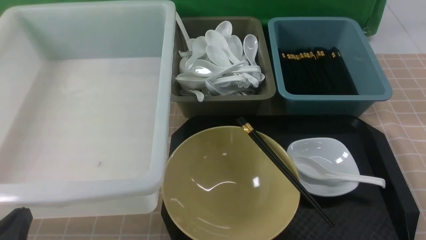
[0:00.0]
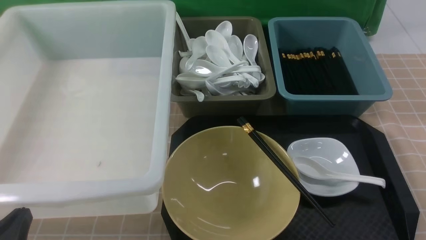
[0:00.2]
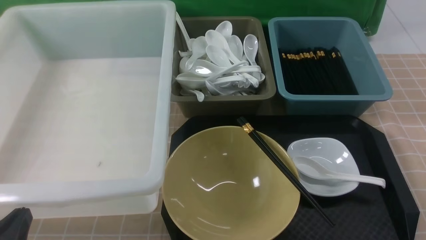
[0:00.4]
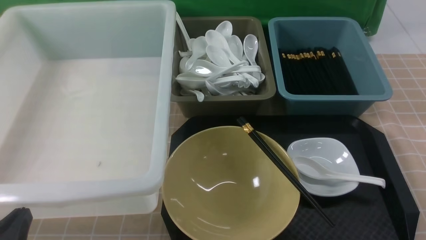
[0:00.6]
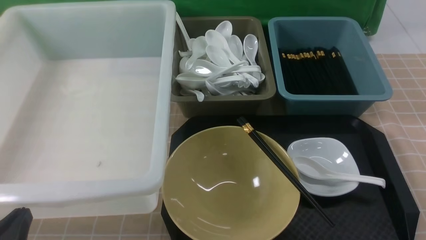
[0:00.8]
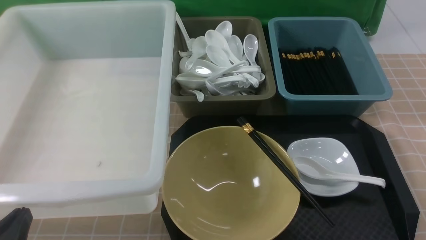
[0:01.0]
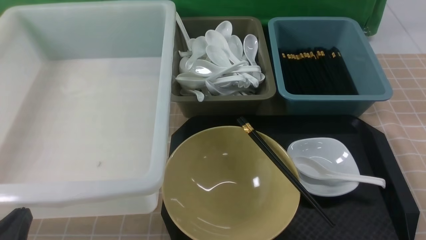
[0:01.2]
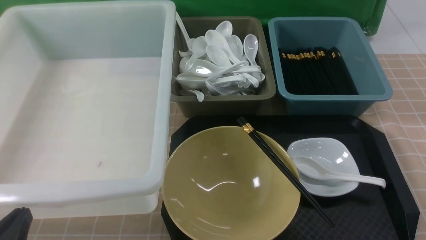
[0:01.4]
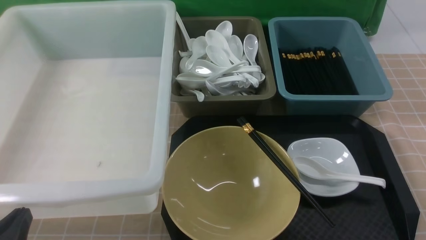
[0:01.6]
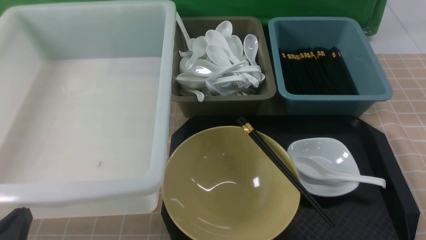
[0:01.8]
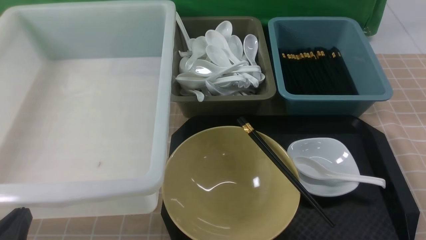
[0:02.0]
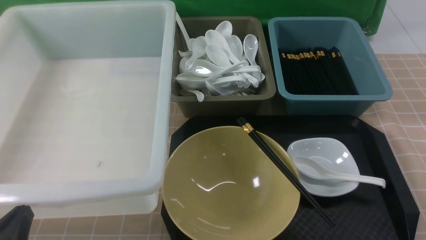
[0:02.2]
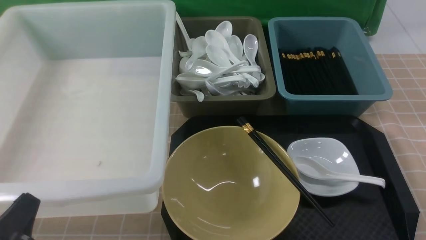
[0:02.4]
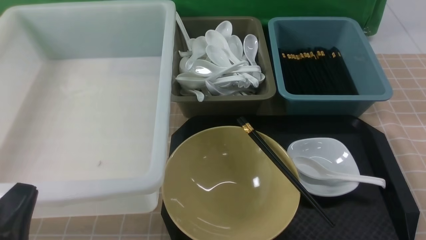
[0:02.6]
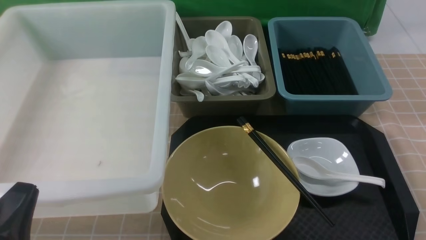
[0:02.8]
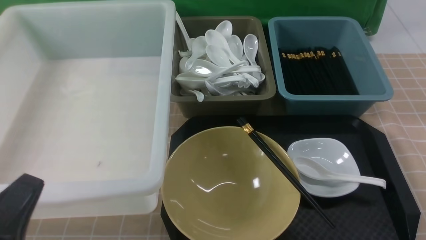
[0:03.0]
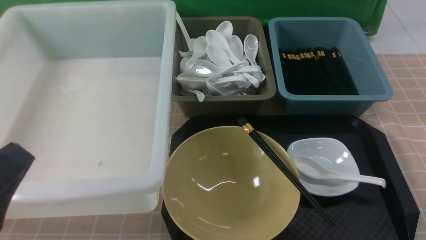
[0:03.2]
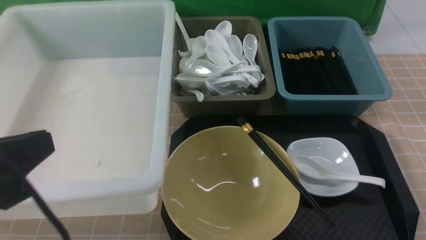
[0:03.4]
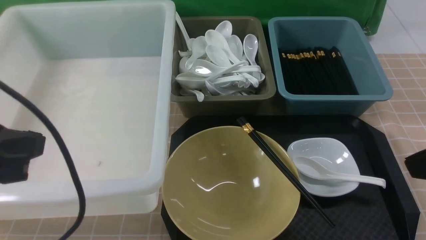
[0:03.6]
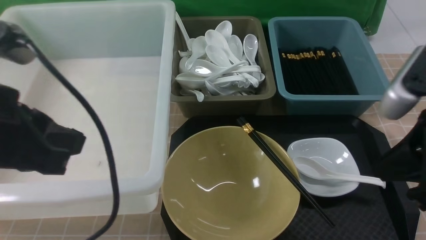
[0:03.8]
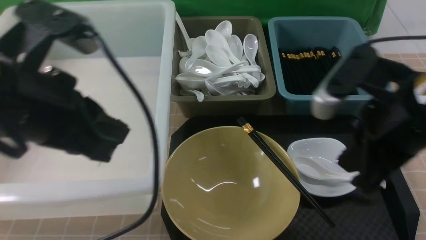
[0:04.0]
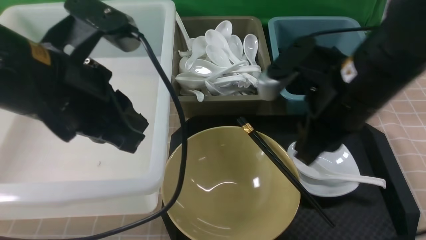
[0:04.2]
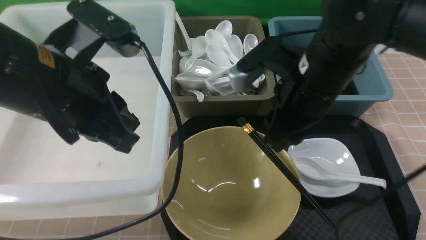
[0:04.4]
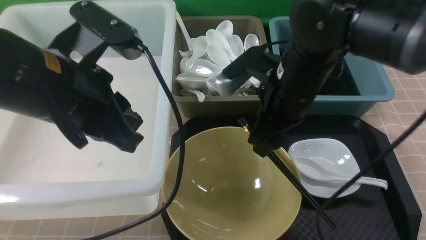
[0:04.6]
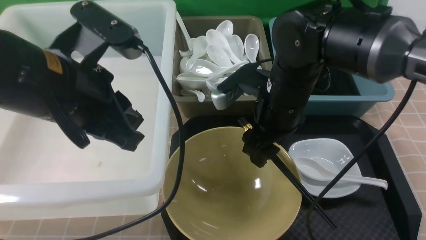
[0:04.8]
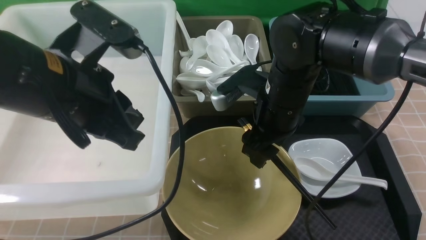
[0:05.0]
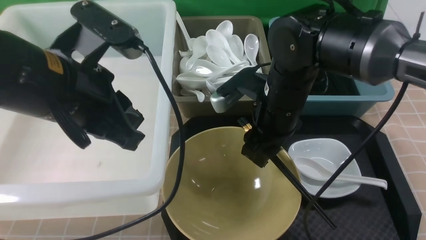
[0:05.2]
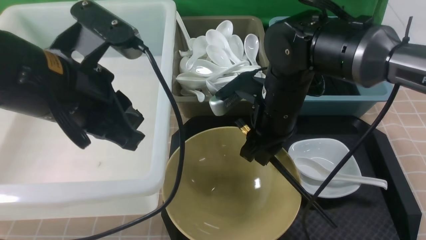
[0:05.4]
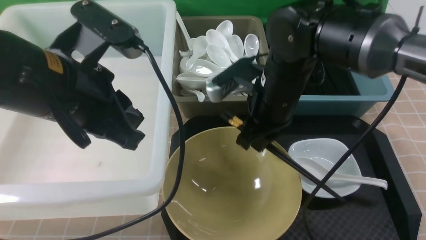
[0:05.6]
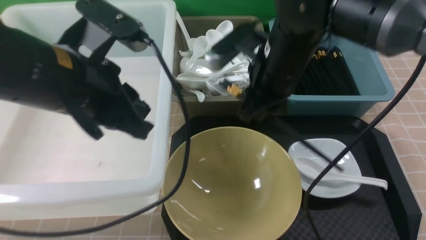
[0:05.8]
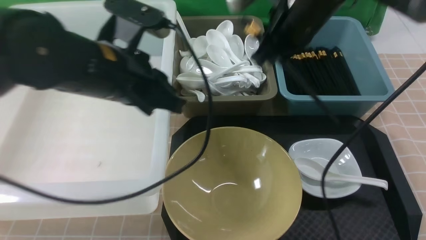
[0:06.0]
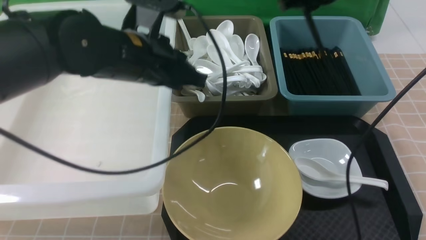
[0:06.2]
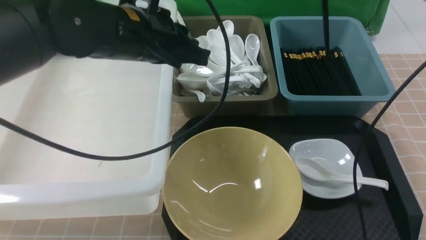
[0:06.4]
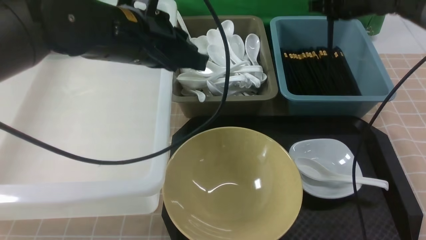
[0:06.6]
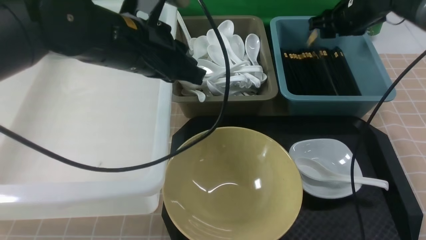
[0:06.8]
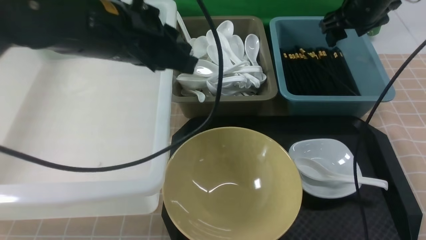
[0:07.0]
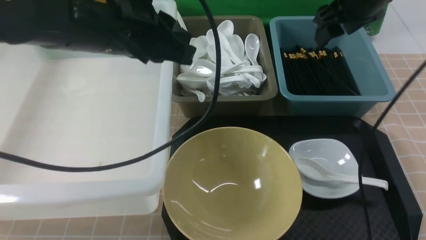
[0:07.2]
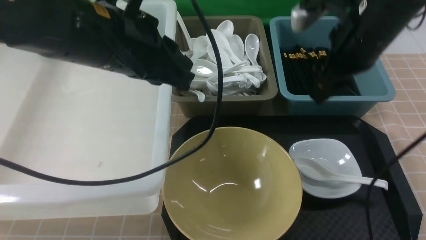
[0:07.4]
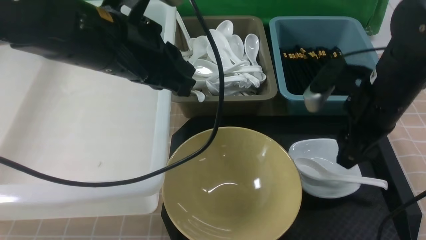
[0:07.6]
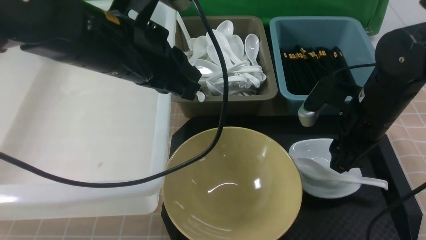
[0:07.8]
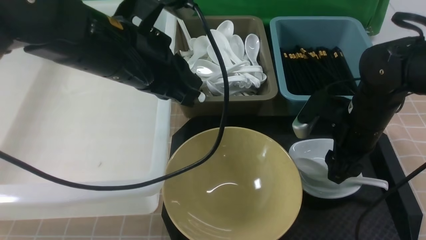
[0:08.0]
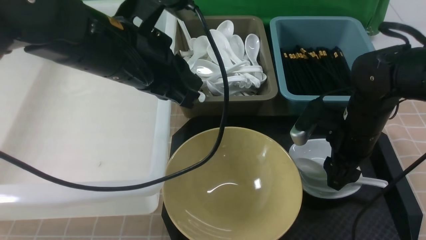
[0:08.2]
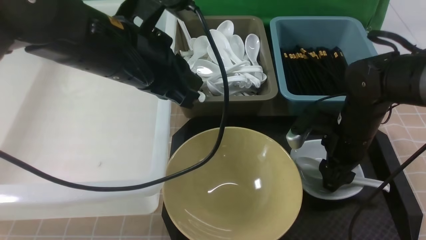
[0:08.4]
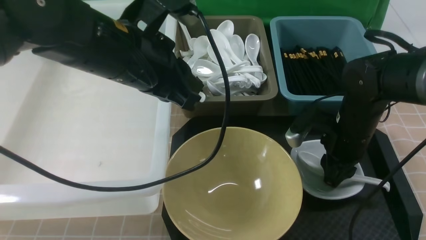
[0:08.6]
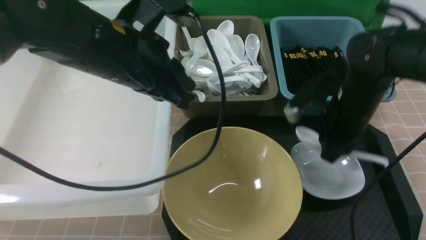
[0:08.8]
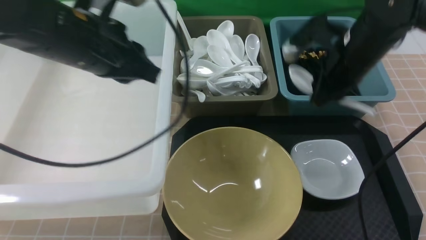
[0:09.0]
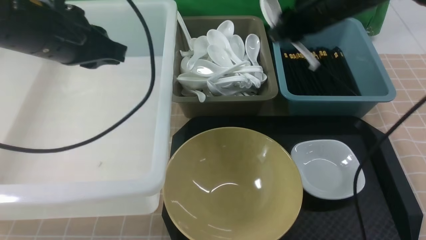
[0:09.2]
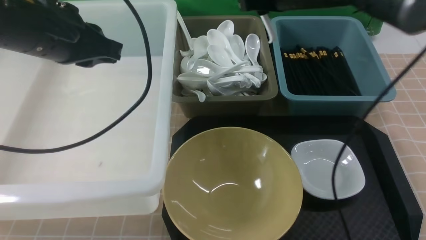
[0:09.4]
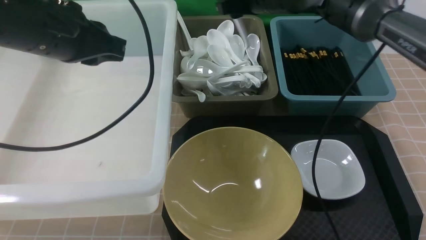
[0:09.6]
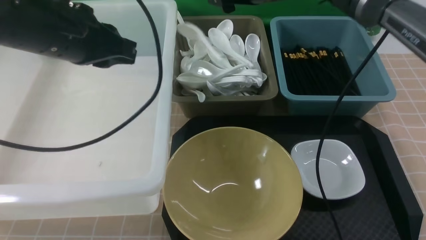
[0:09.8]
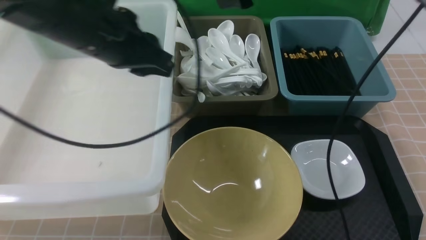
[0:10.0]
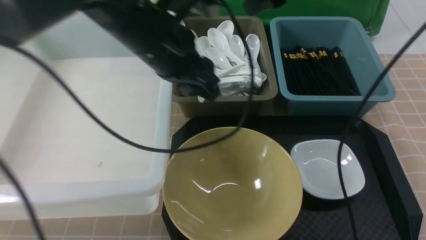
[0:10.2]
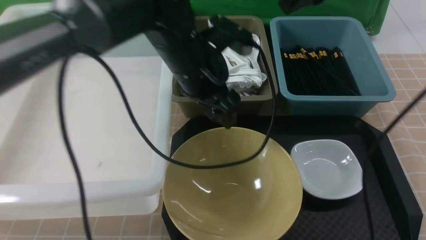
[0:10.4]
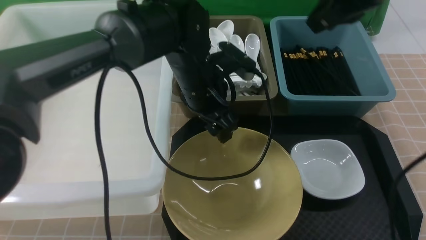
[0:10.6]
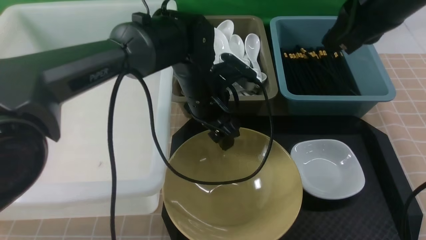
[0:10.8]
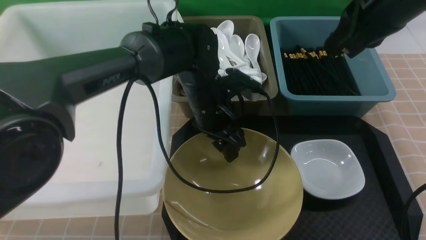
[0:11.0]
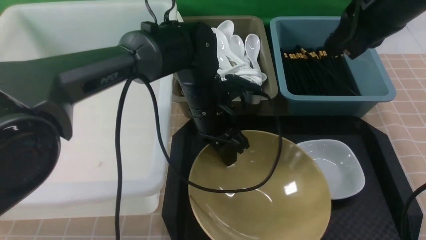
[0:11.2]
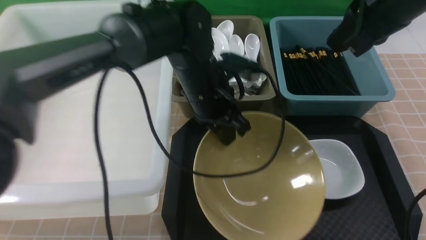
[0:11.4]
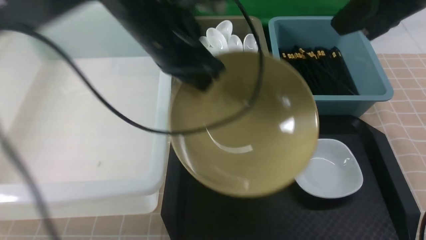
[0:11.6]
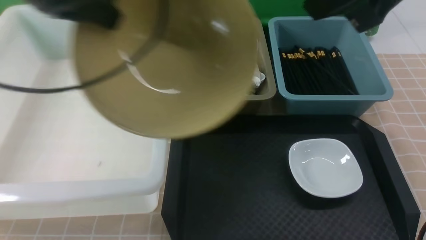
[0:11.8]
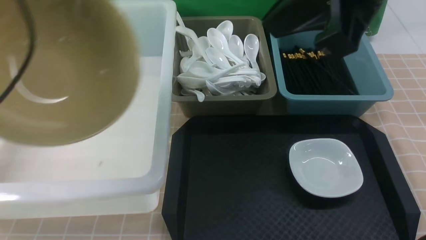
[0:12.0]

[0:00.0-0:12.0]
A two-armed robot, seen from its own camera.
Task of the whole recording: on brown table put chopsticks spoon bowls plates into blue grey white boxes.
Step, 0:00.0 to 0:05.6: use the right arm to grab the chopsticks.
Step, 0:05.8 to 0:07.2: use the right arm to put the chopsticks into the small storage box on the right.
Step, 0:07.4 to 0:08.8: use the right arm to grab the soup spoon in the middle.
Step, 0:09.0 to 0:09.8: use the right arm to put the soup spoon into the small storage box in the middle.
Step, 0:10.0 to 0:11.4: use the left arm to grab the yellow noodle bowl on the left.
0:00.0 to 0:01.6: Neither gripper changes place.
0:01.6 to 0:03.0: The left gripper goes roughly 5 cm upward.
0:03.0 to 0:04.4: The left gripper travels forward, upward and to the right by some 20 cm. The right gripper is displaced forward, to the left and upward by some 30 cm, and opens.
0:04.4 to 0:06.0: The left gripper travels forward by approximately 5 cm; the right gripper shifts approximately 10 cm forward, and closes.
0:06.0 to 0:07.6: The right gripper shifts roughly 15 cm to the right, backward and downward, and opens.
0:07.6 to 0:09.0: The right gripper shifts some 5 cm forward, moves some 10 cm downward and comes back, and closes. The left gripper ends up about 5 cm from where it was.
0:09.0 to 0:10.4: The right gripper heads upward, covering some 15 cm, and opens, then closes once more, while the left gripper heads to the right, downward and forward, covering some 15 cm, and opens up.
0:10.4 to 0:12.0: The right gripper heads backward, covering approximately 15 cm. The left gripper heads to the left and upward, covering about 30 cm, and closes.

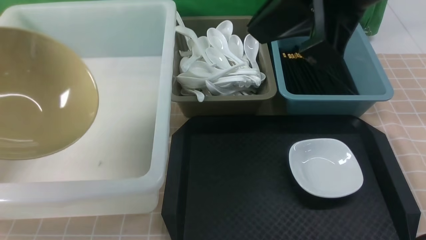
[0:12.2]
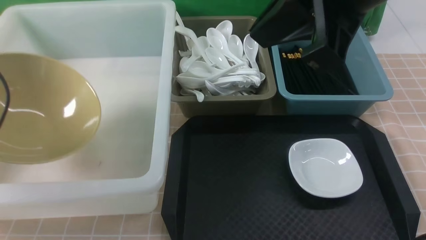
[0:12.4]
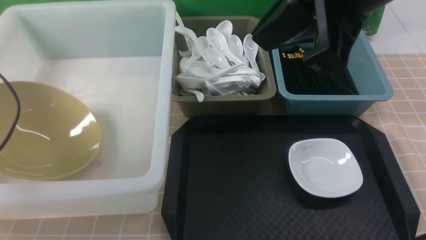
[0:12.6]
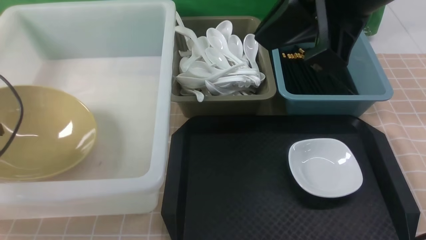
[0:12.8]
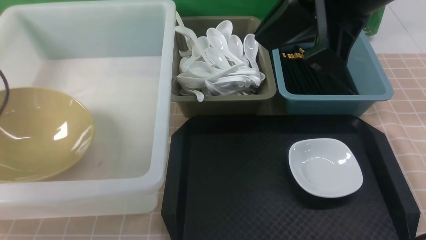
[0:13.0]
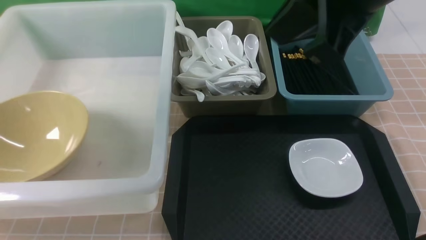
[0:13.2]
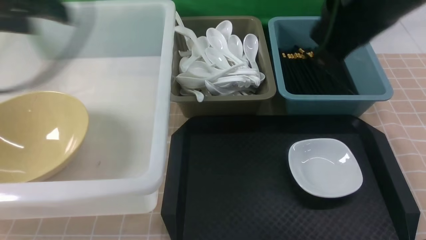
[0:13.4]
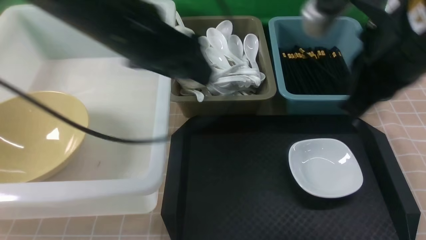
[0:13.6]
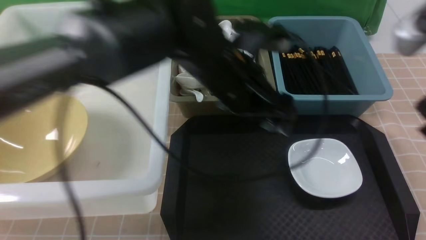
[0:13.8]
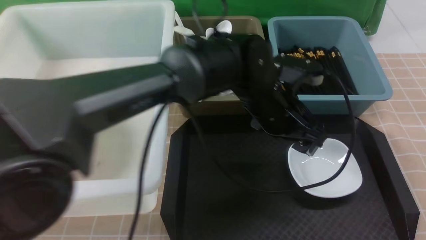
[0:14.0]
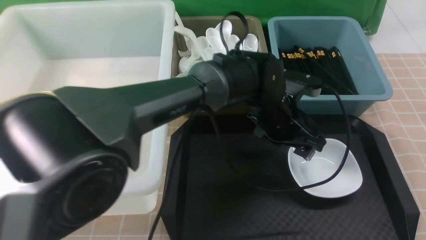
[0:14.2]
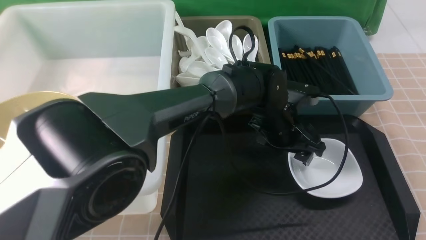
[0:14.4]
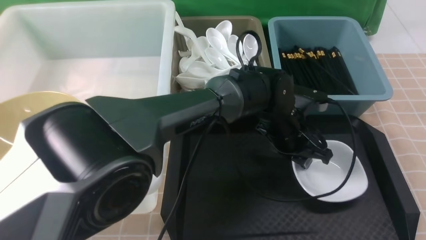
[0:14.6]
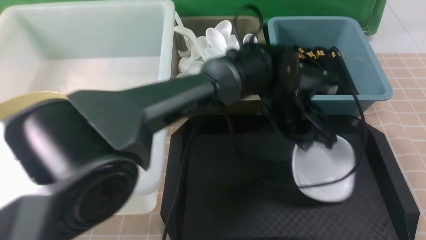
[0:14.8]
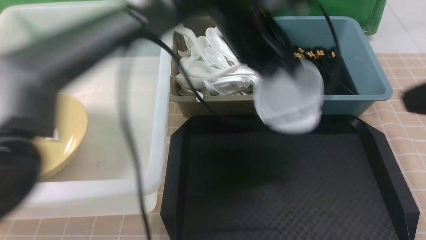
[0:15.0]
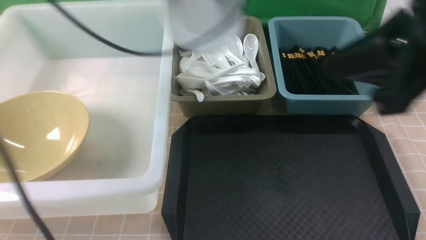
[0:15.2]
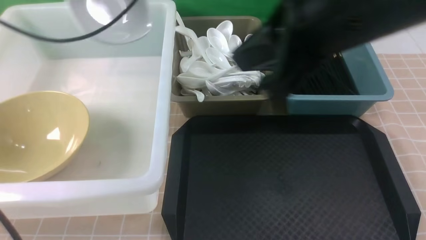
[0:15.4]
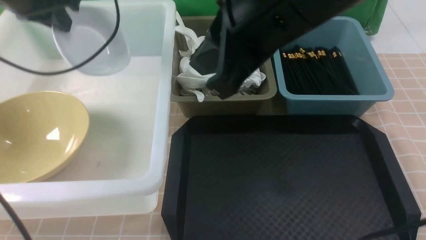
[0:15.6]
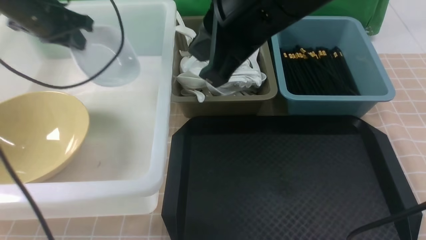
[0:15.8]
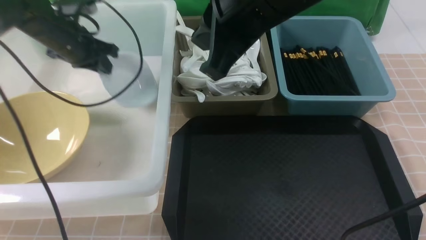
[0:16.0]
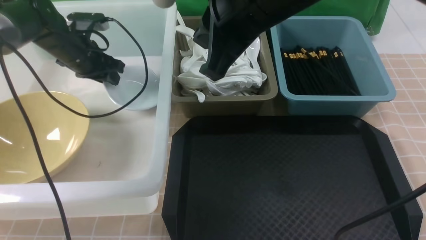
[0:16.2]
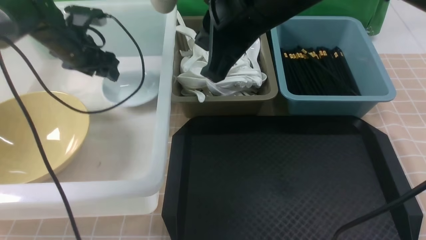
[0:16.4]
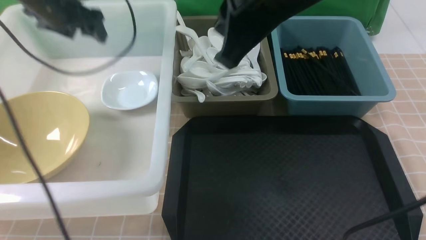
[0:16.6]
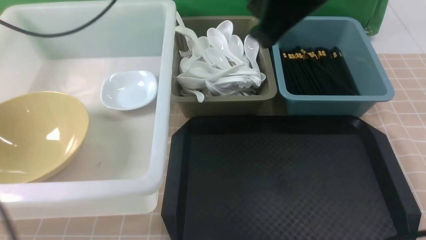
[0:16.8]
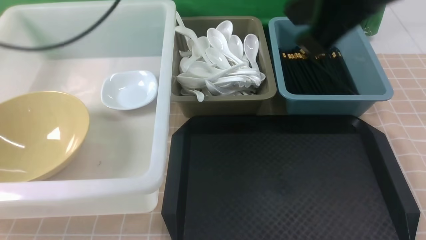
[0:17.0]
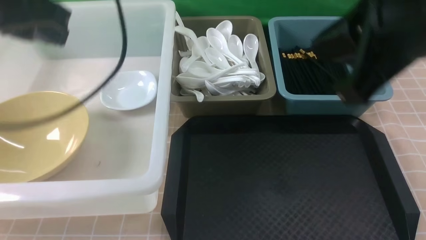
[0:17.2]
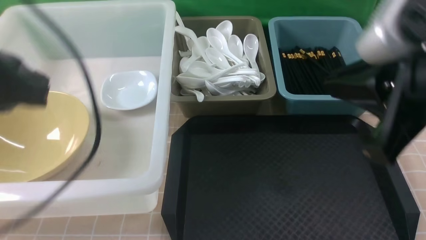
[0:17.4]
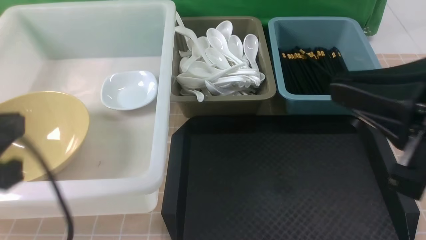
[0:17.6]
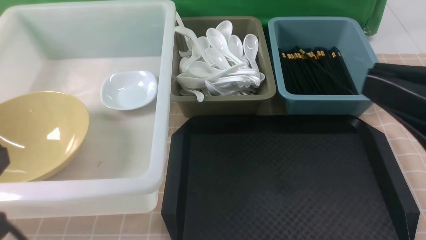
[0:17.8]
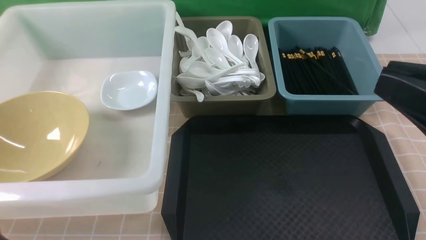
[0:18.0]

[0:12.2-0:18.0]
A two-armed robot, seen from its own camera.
Task of the whole recording: on brown table put chopsticks spoon bowls plates into blue grey white boxes.
Step, 0:12.2 to 0:13.0: use the left arm to put the noodle bowl into the large storage box on the left.
Step, 0:13.2 to 0:14.6: use the left arm to grab the plate.
Step, 0:14.8 to 0:16.4: use the left arm to put the plate into the large storage box on the left.
0:12.2 to 0:13.6: The right gripper goes about 10 cm to the right and downward; the left gripper heads to the right, covering approximately 25 cm, and opens up.
0:13.6 to 0:15.0: The left gripper shifts about 10 cm to the right and forward, and closes. Meanwhile the right gripper is displaced backward by some 5 cm.
0:15.0 to 0:16.6: The left gripper heads to the left, covering approximately 25 cm, and opens up; the right gripper is displaced to the left and forward by roughly 20 cm.
0:16.6 to 0:18.0: The right gripper heads backward and to the right, covering roughly 20 cm. The left gripper shifts roughly 40 cm backward, and closes.
